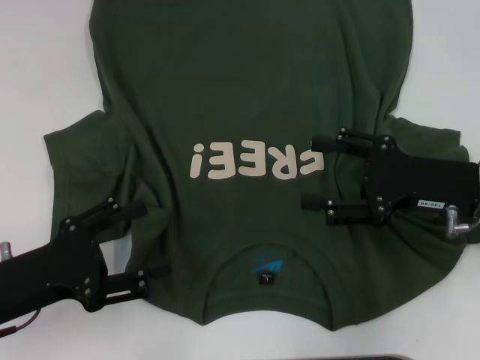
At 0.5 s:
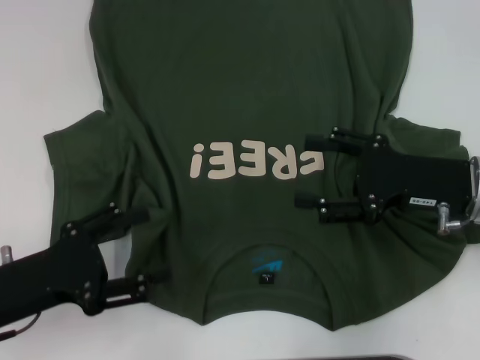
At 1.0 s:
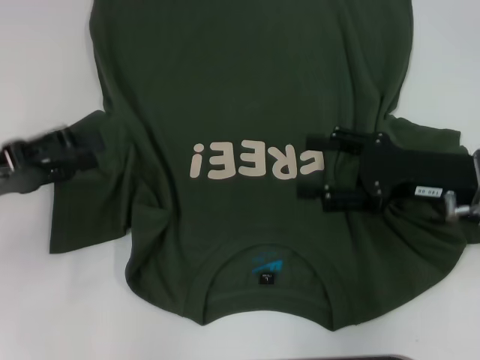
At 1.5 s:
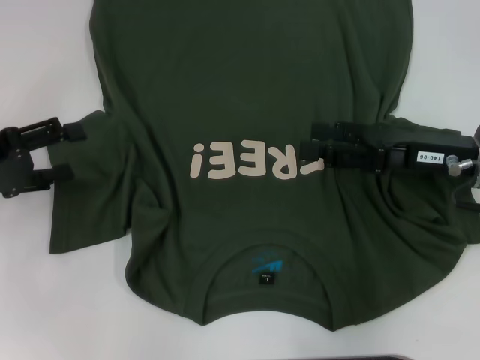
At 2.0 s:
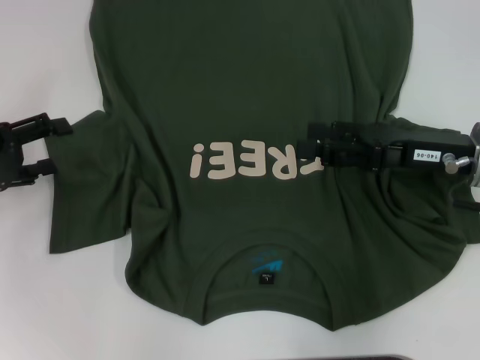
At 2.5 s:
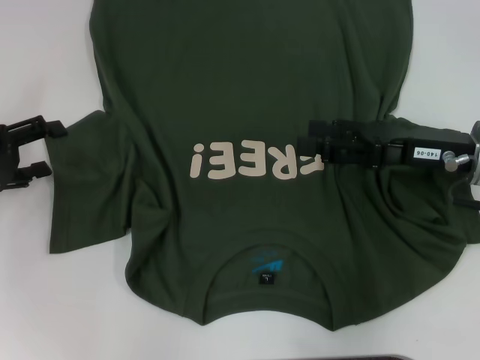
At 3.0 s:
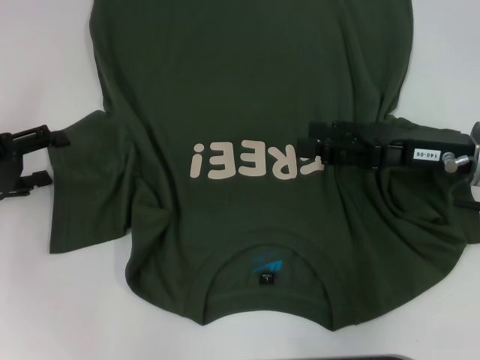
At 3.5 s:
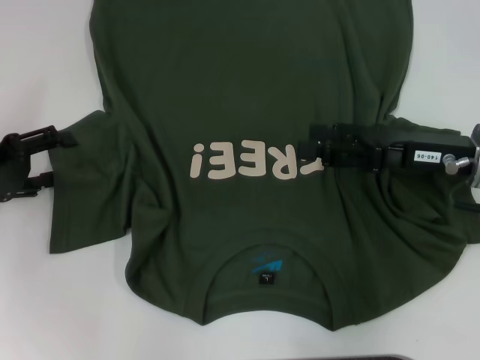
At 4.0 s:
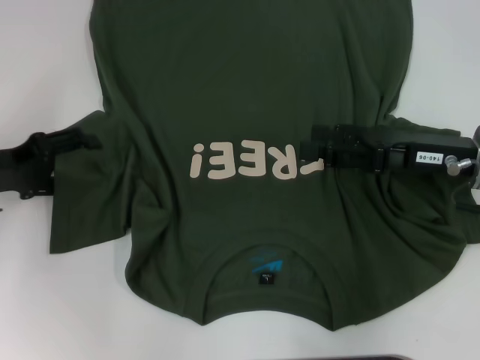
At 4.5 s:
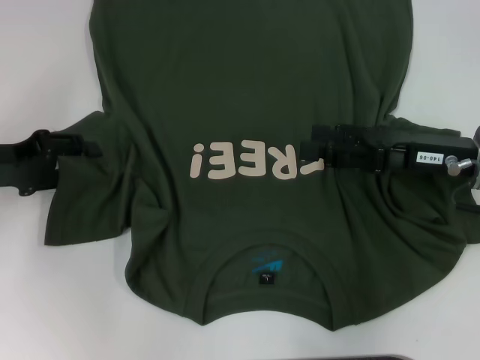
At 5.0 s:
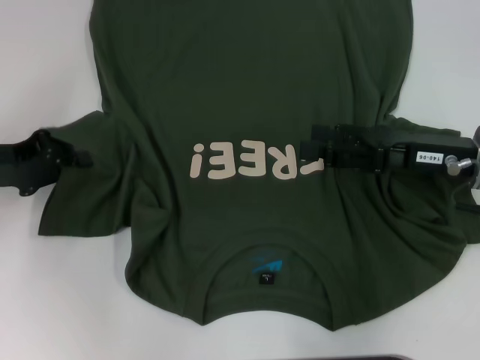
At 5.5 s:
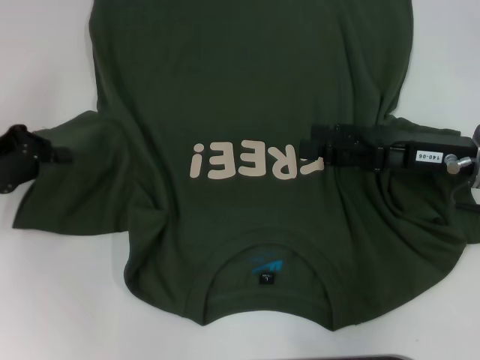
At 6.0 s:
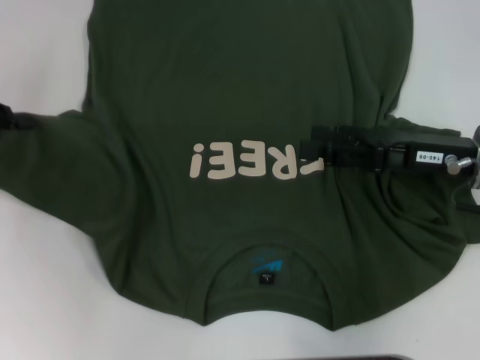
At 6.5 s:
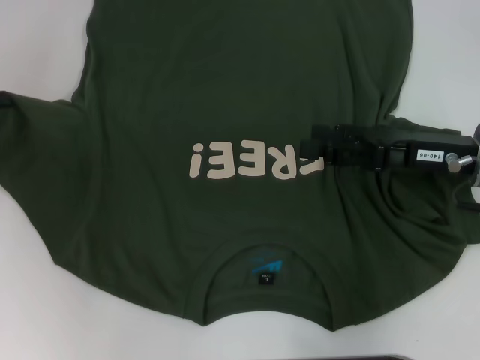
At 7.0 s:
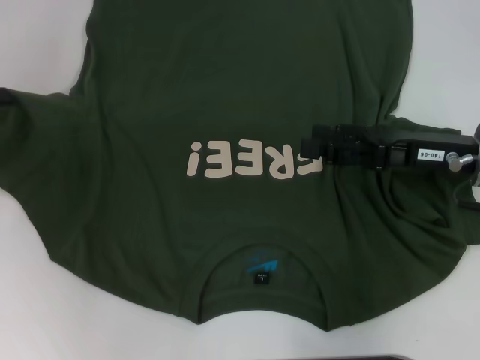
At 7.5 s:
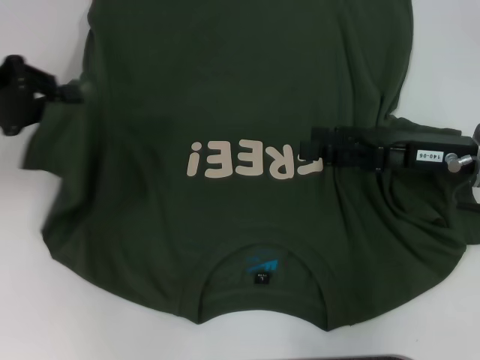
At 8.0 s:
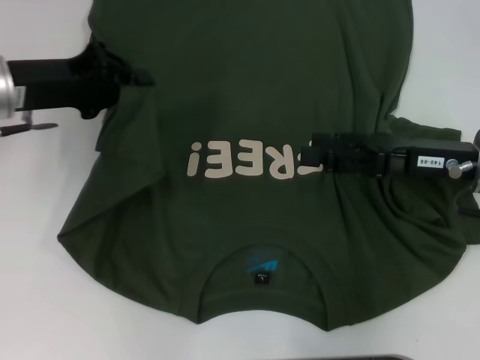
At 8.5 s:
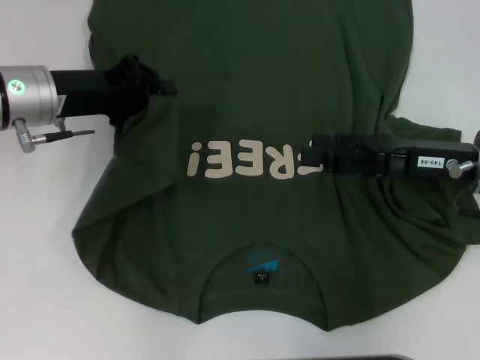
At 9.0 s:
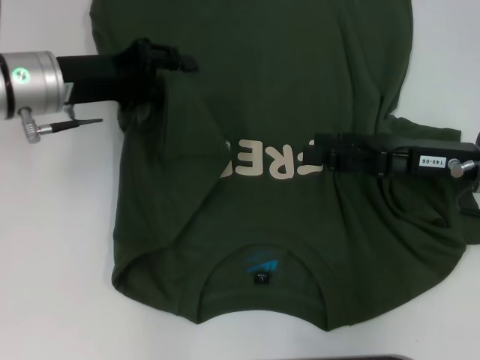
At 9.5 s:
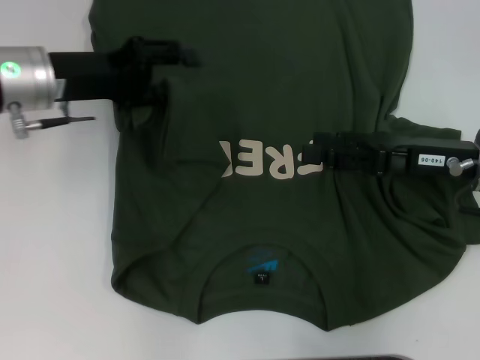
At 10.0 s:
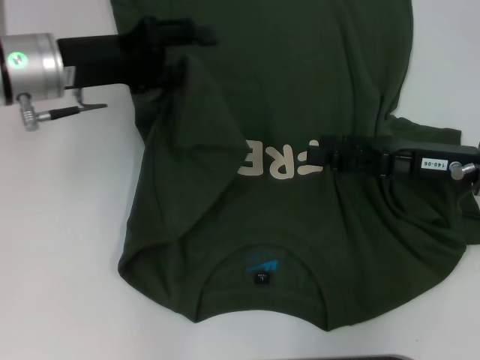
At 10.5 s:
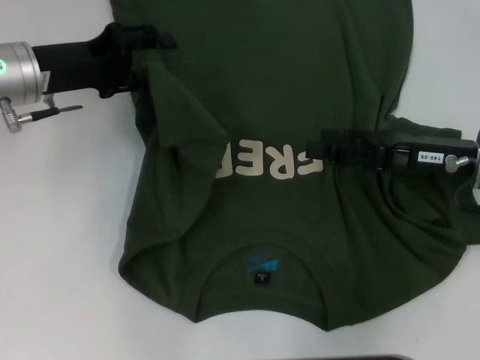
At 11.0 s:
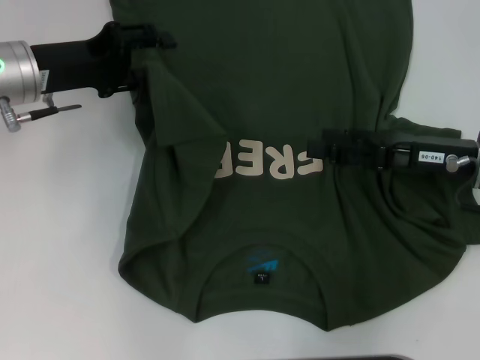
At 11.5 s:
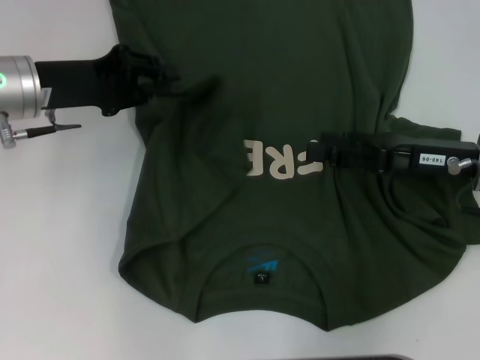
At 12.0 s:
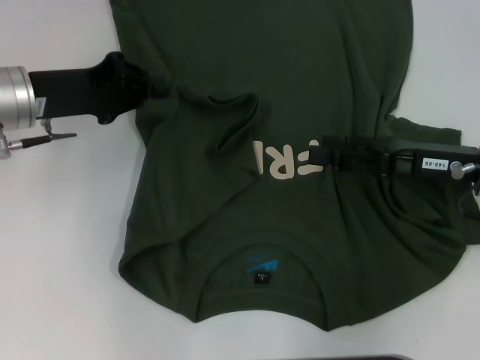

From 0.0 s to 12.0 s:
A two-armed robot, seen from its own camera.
From 0.0 s to 2.0 s: The left gripper travels forward and to the left by some 15 cm.
From 2.0 s to 4.0 s: The grippers stay close to where they were, moving slightly.
From 4.0 s to 6.0 s: The left gripper moves about 5 cm, and closes its fingers.
From 6.0 s to 8.0 s: The left gripper heads to the right, covering approximately 10 cm.
From 8.0 s to 10.0 s: The left gripper opens up.
From 10.0 s to 12.0 s: The left gripper closes.

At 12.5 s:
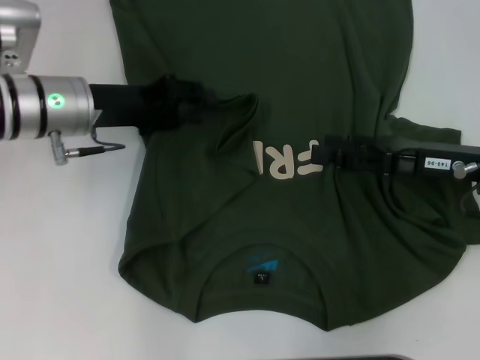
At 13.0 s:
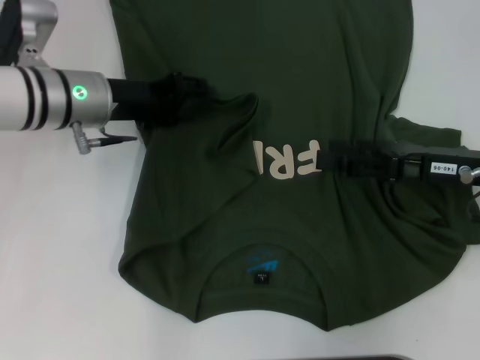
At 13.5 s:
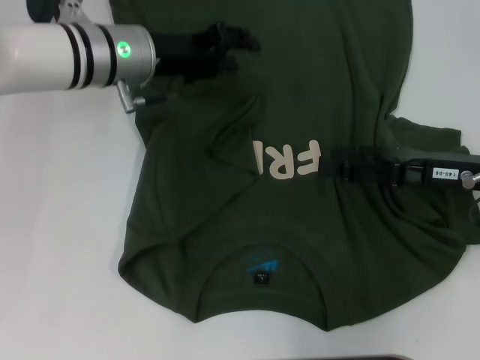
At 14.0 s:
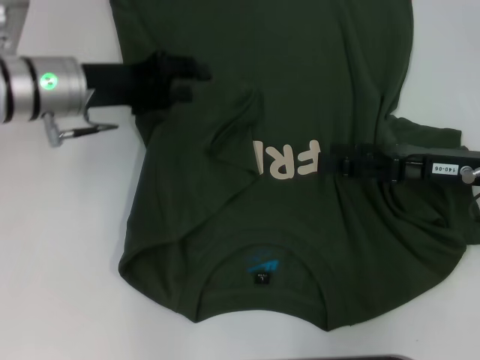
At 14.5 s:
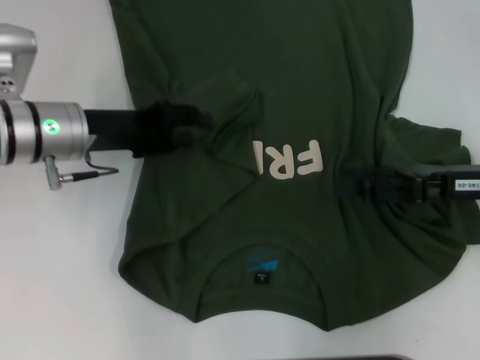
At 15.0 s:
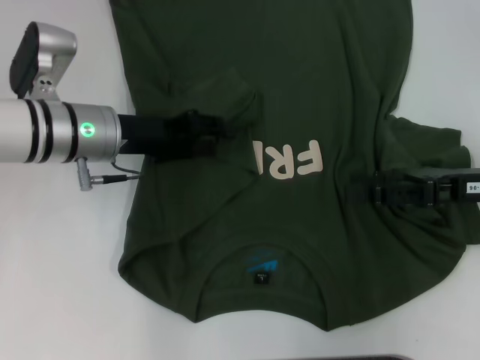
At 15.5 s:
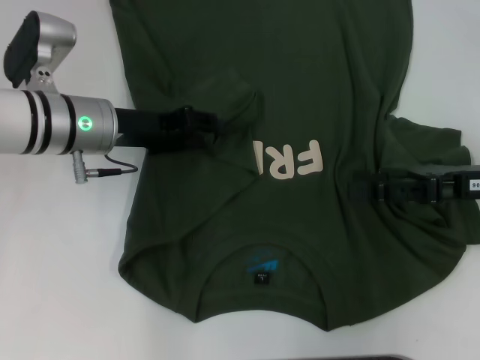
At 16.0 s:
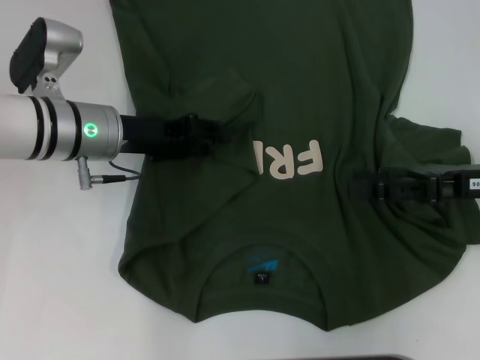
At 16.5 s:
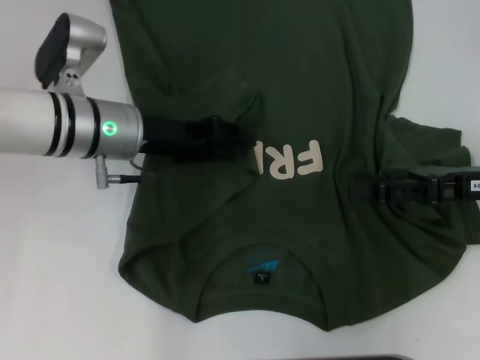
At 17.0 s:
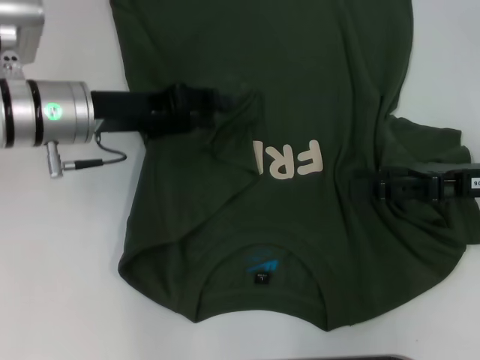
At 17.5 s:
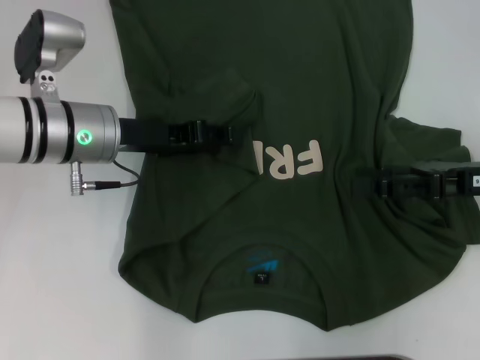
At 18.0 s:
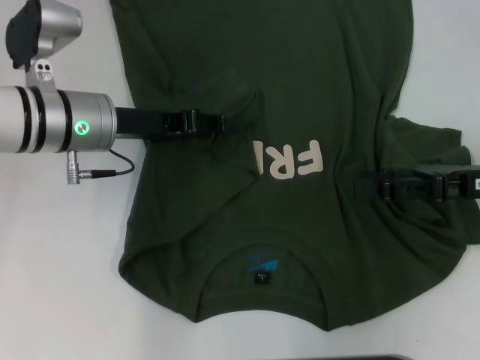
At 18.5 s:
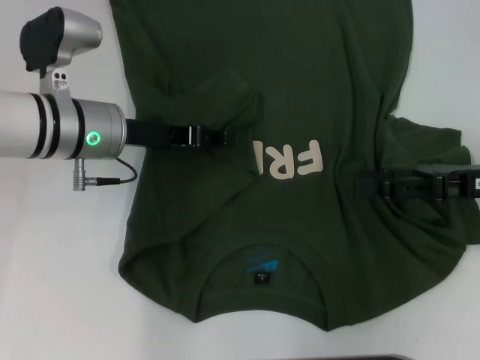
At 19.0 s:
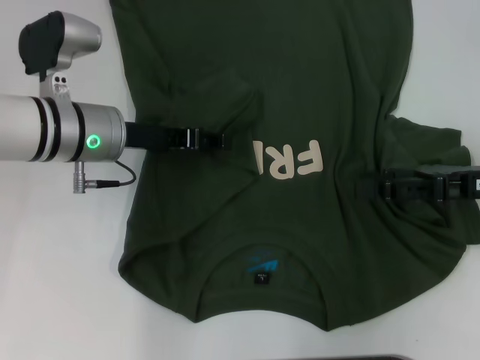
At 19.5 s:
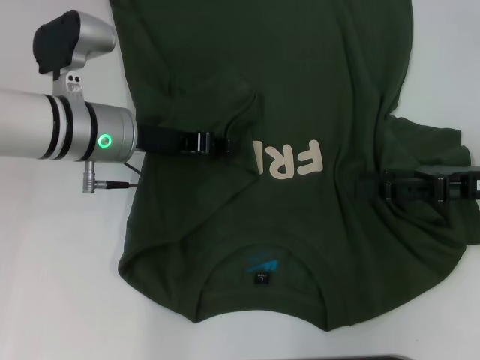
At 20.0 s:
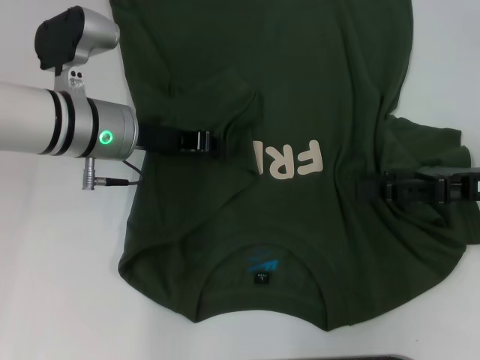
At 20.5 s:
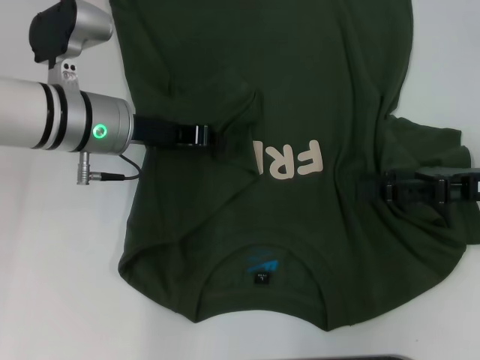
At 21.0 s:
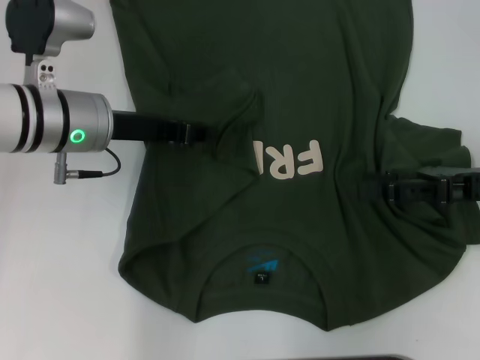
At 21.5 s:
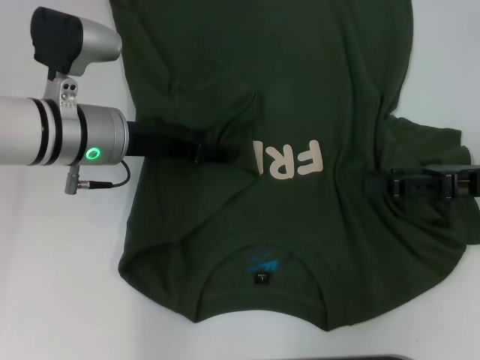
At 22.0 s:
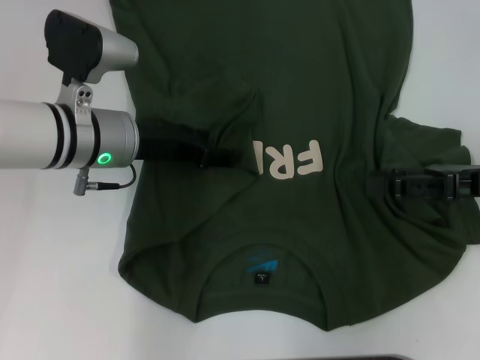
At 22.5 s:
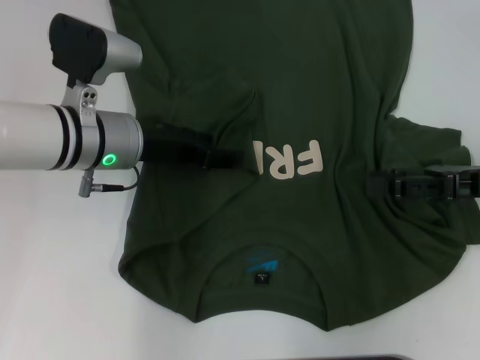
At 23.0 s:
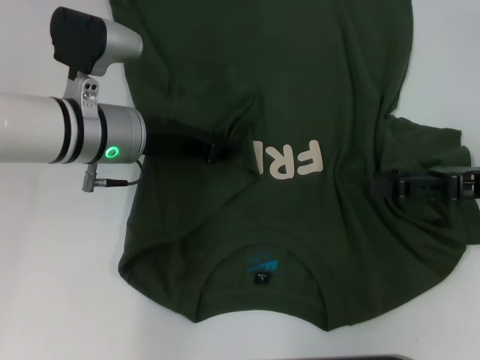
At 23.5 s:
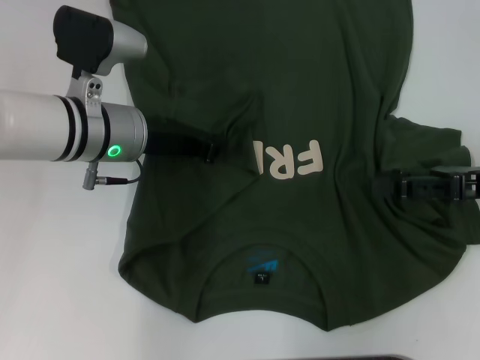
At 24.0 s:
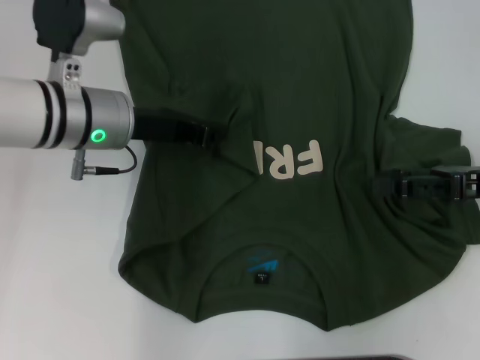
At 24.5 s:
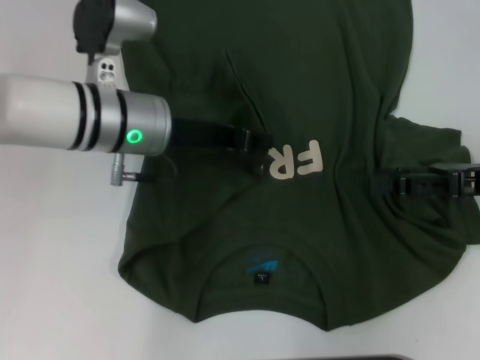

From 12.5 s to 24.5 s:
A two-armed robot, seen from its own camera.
From 14.5 s to 16.5 s: The left gripper moves to the right, roughly 5 cm.
From 16.5 s to 18.5 s: The grippers move only a little.
From 18.5 s to 20.5 s: The left gripper closes.
From 20.5 s to 22.5 s: The left gripper opens up.
From 22.5 s to 24.5 s: The left gripper closes.

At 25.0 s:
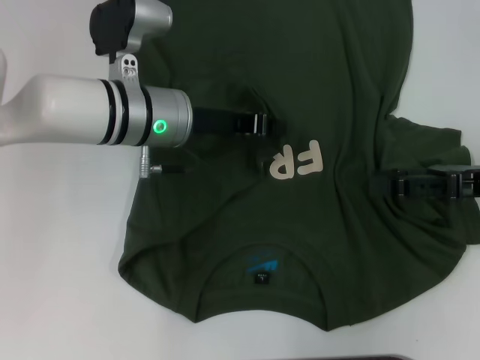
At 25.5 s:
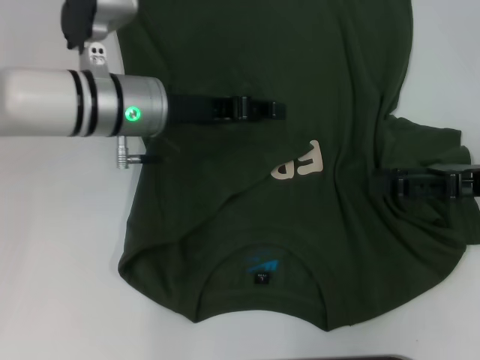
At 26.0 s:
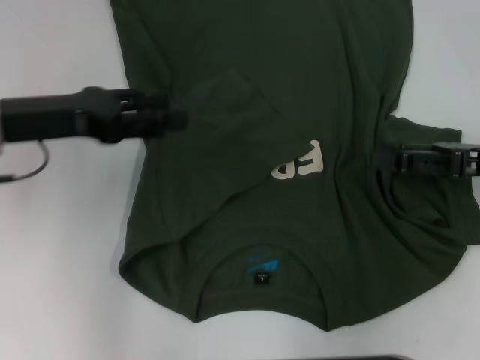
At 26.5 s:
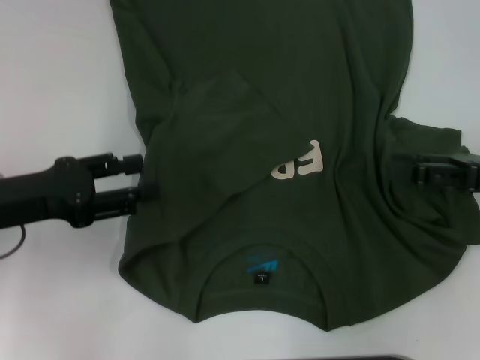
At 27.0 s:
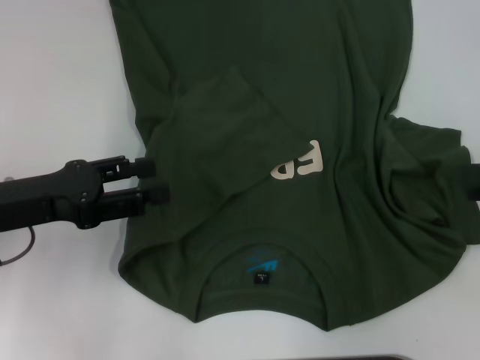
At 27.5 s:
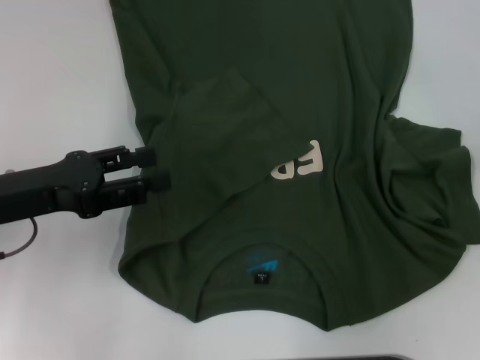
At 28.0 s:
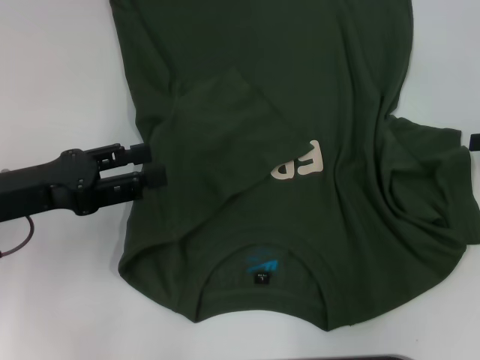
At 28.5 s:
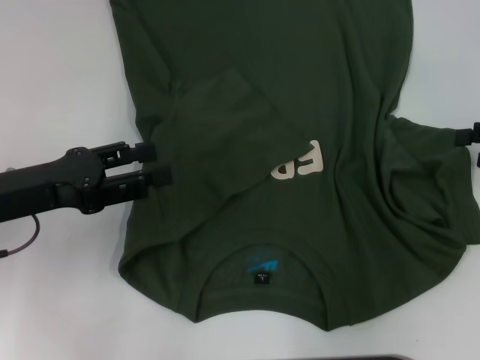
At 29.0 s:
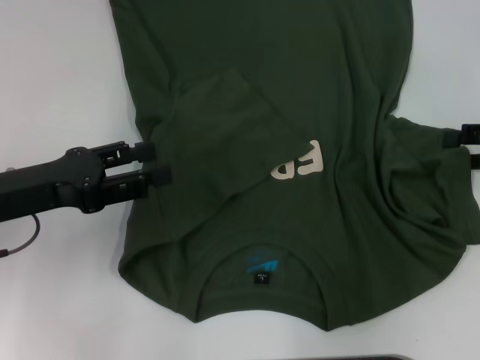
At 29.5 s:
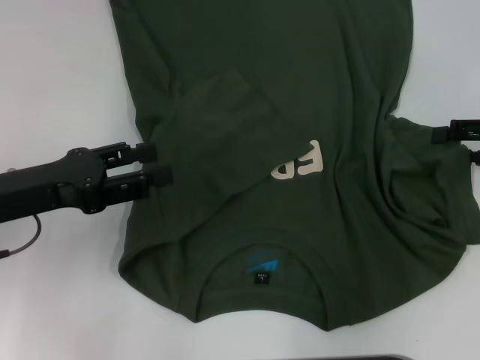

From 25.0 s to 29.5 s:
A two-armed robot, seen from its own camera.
From 25.0 s to 27.0 s: The right gripper heads to the right, covering some 10 cm; the left gripper moves to the left and backward, some 20 cm, and opens.
From 27.0 s to 29.5 s: The right gripper is displaced forward by some 5 cm.
